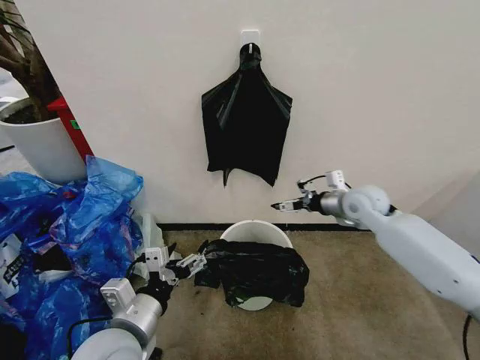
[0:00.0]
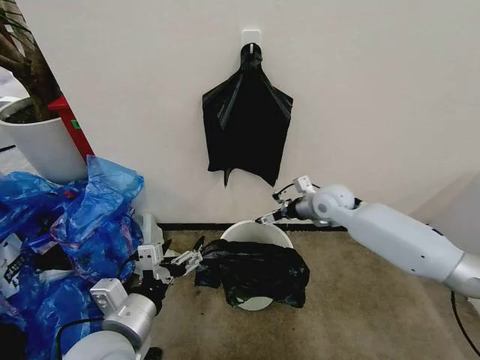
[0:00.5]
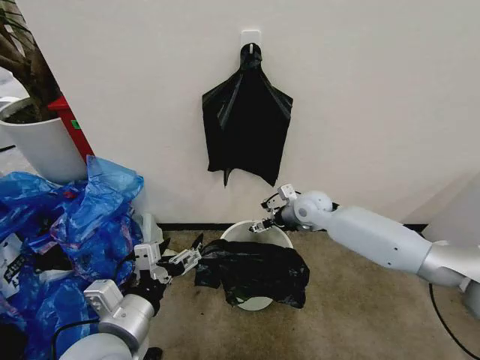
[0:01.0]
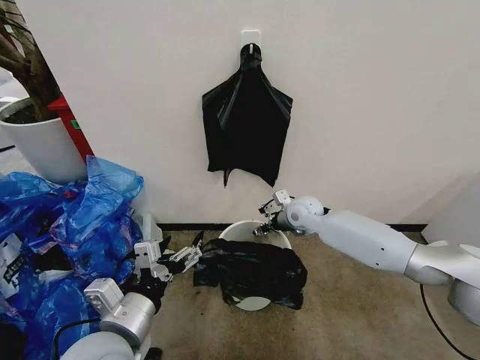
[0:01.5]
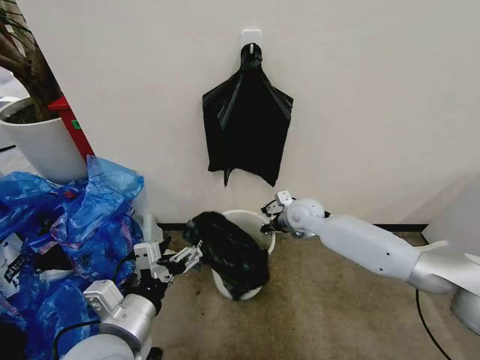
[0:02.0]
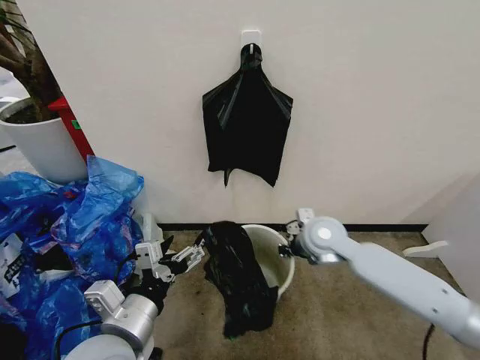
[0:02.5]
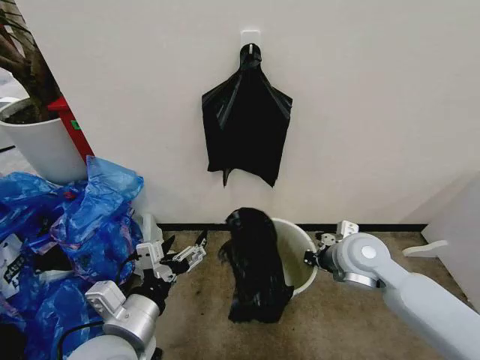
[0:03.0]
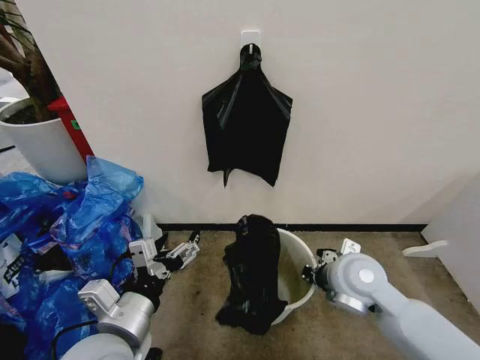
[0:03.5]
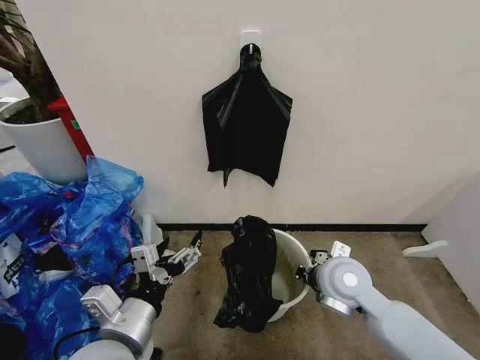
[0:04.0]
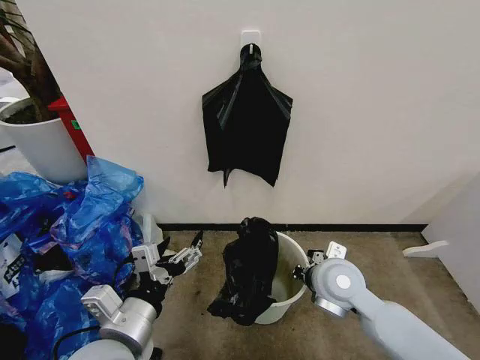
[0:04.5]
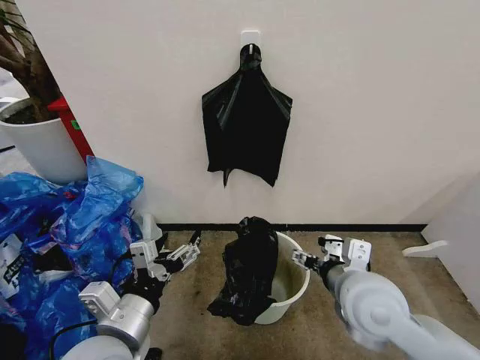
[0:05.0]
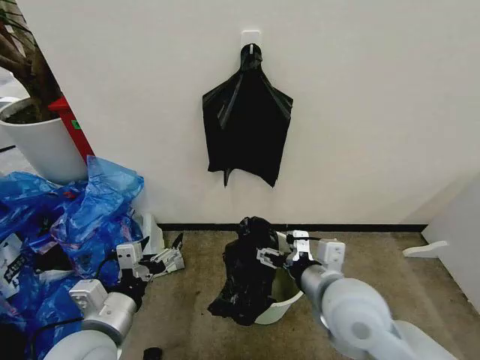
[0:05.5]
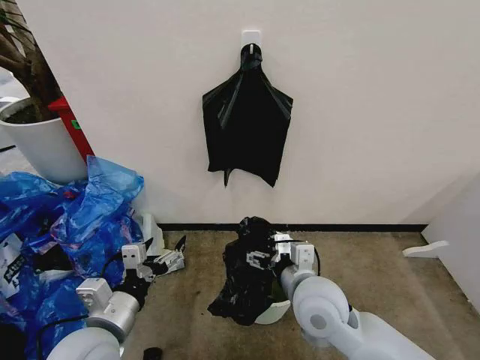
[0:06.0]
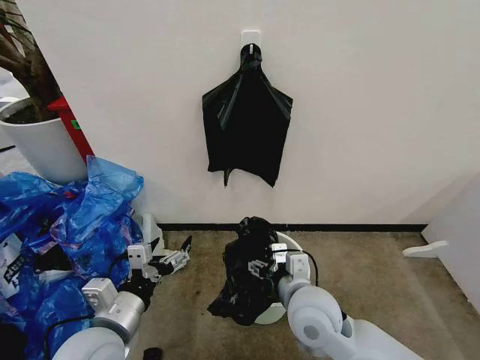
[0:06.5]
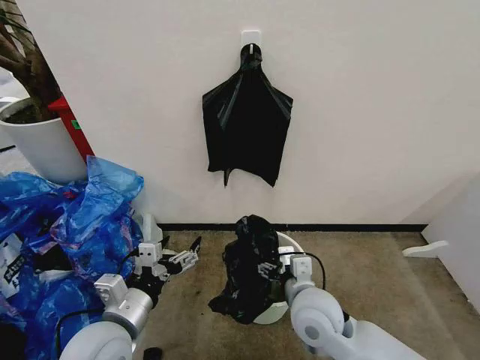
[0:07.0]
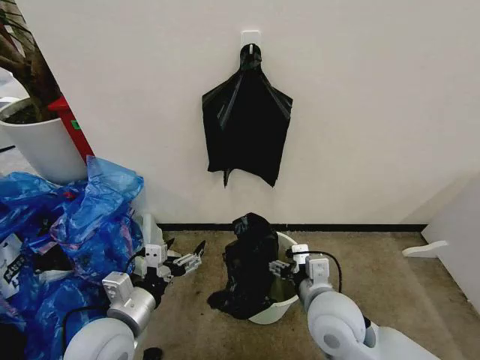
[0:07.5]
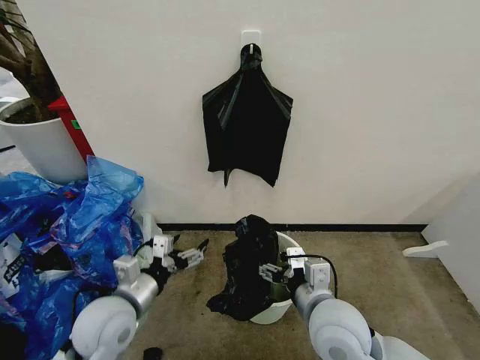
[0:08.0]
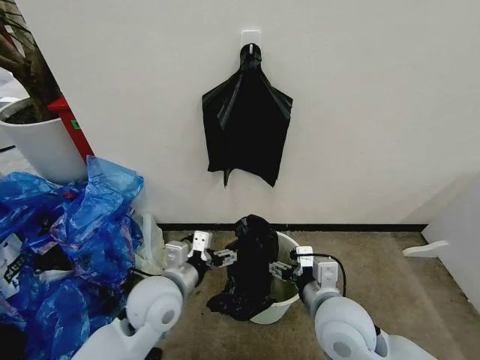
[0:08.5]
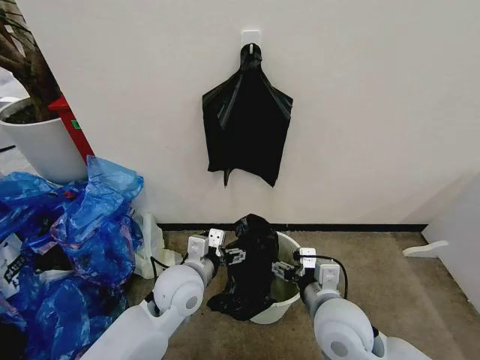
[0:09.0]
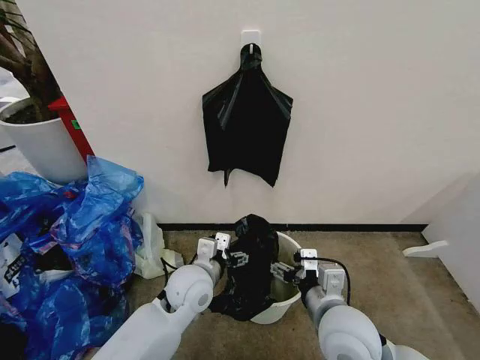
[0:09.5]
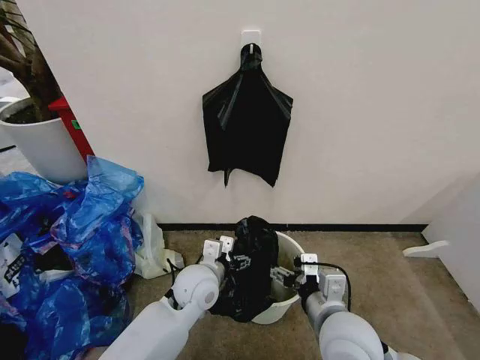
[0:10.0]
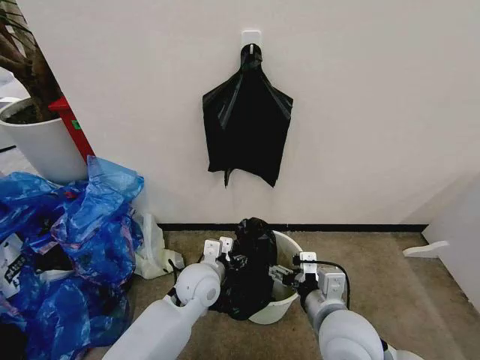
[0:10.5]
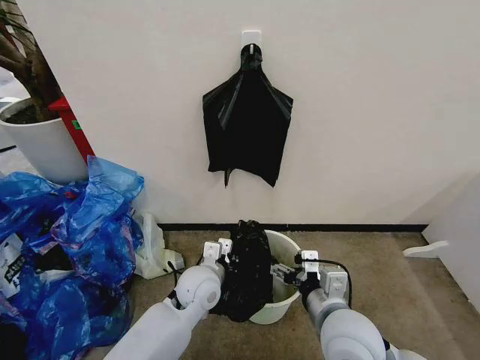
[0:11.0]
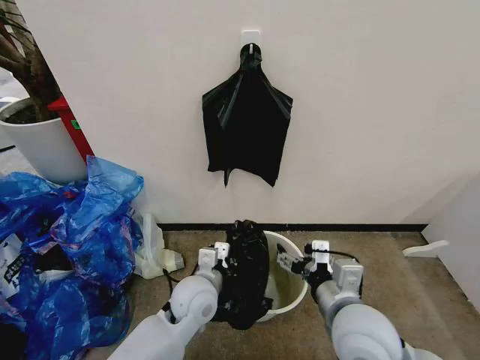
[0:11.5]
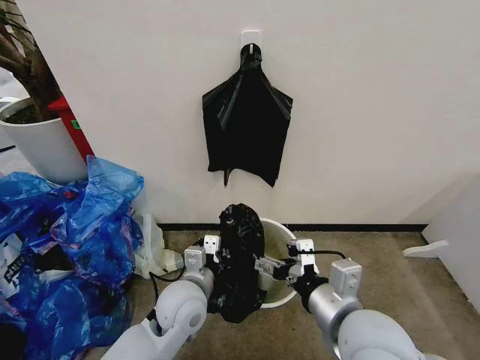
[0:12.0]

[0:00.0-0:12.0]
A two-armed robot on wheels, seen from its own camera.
Task of the whole recording: Place the garbage bag over the trash bin.
0:00.0 to 0:02.0: The right gripper shifts about 15 cm to the left and downward, and closes.
0:02.0 to 0:04.0: The right gripper is displaced backward by approximately 20 cm.
0:04.0 to 0:06.0: The left gripper shifts by some 5 cm; the right gripper shifts about 5 cm to the left, and opens up.
0:06.0 to 0:08.0: The left gripper is displaced forward by some 5 cm.
0:08.0 to 0:10.0: The left gripper is displaced to the right and forward by roughly 15 cm.
0:10.0 to 0:12.0: The right gripper goes about 5 cm upward. Meanwhile the left gripper changes place by approximately 5 cm, and closes up.

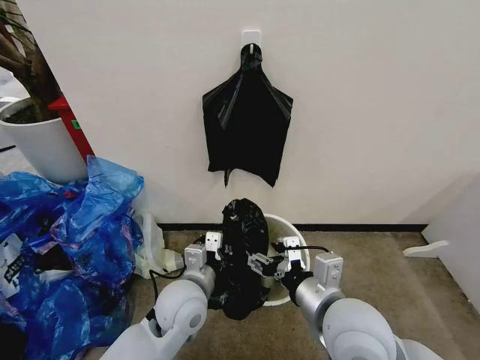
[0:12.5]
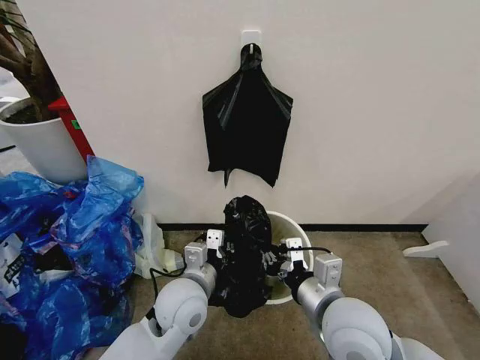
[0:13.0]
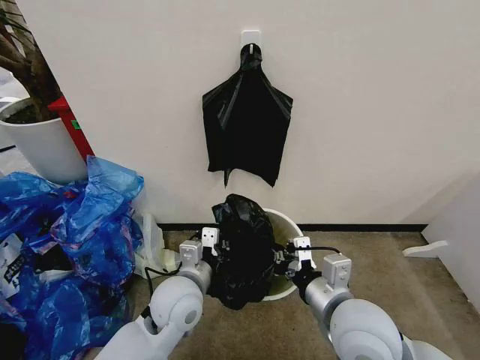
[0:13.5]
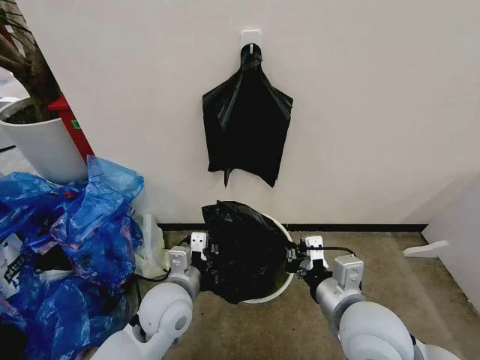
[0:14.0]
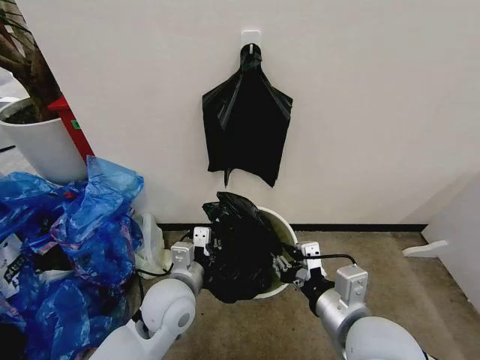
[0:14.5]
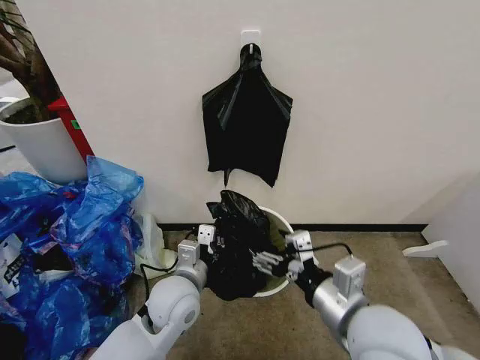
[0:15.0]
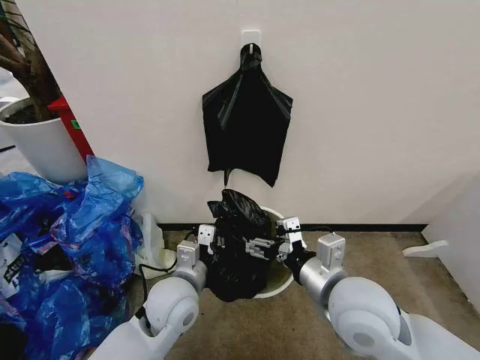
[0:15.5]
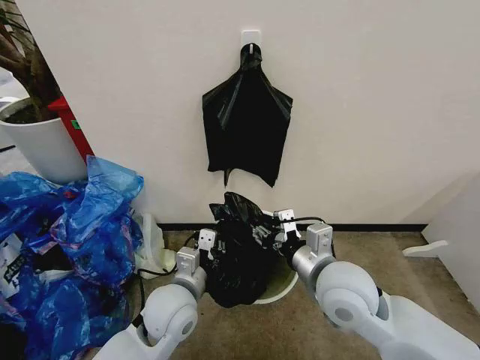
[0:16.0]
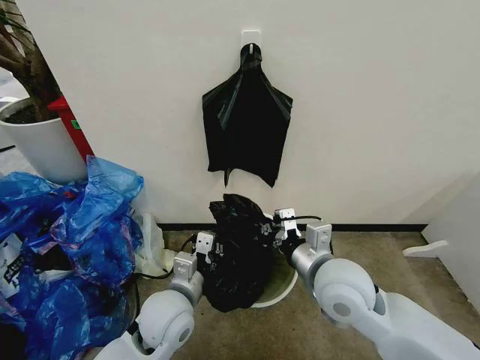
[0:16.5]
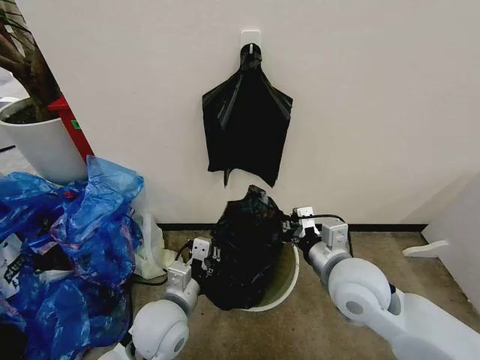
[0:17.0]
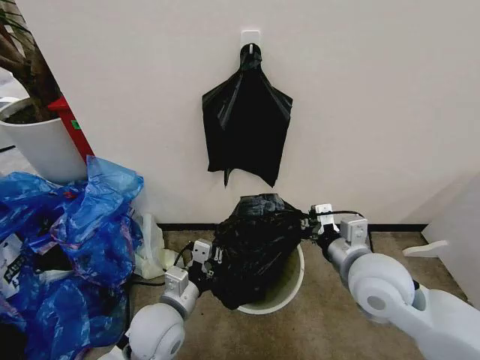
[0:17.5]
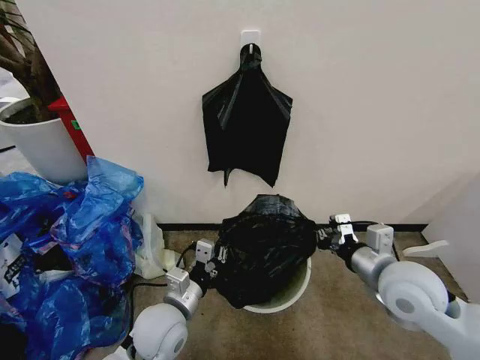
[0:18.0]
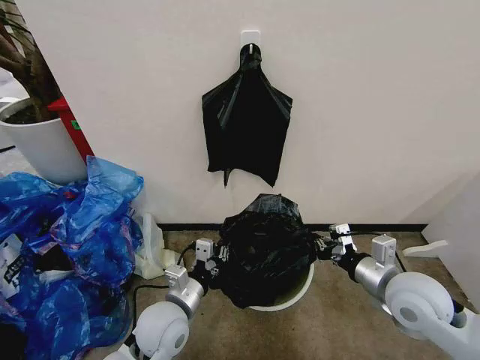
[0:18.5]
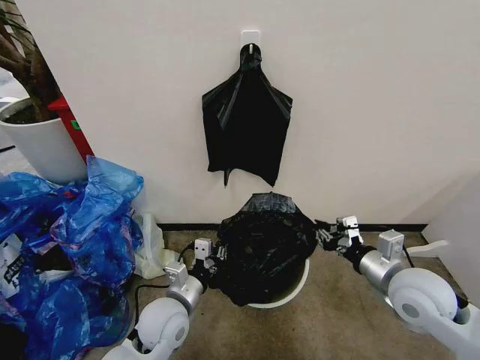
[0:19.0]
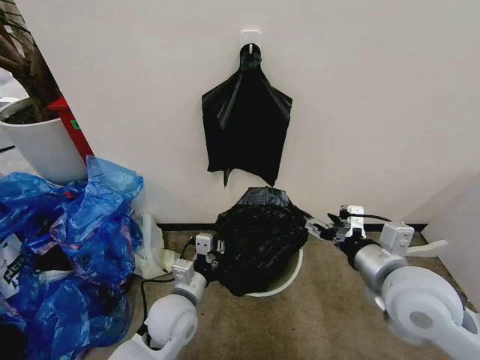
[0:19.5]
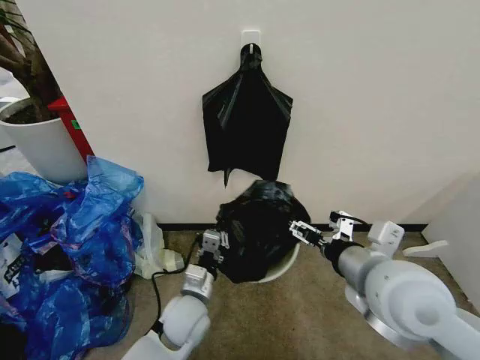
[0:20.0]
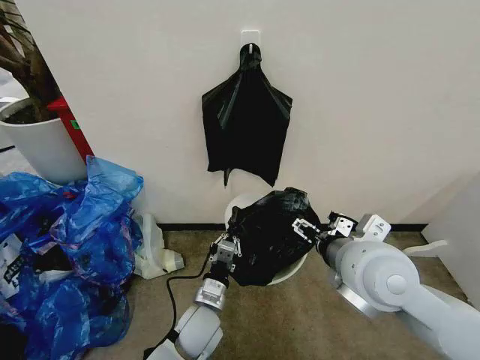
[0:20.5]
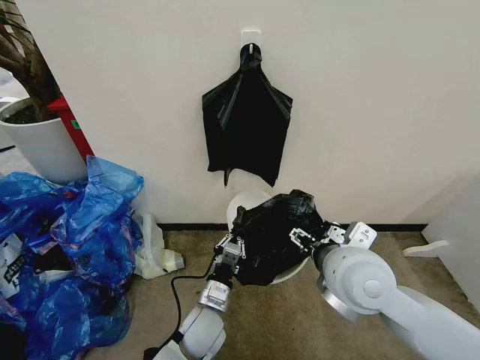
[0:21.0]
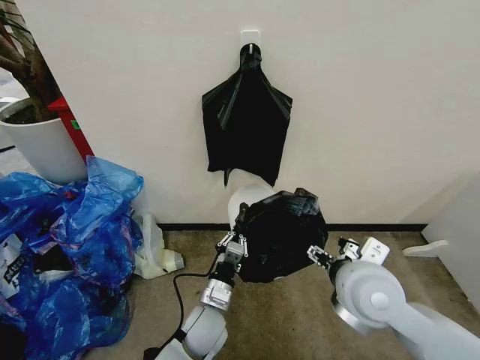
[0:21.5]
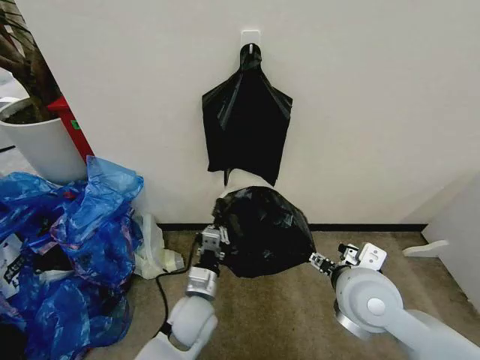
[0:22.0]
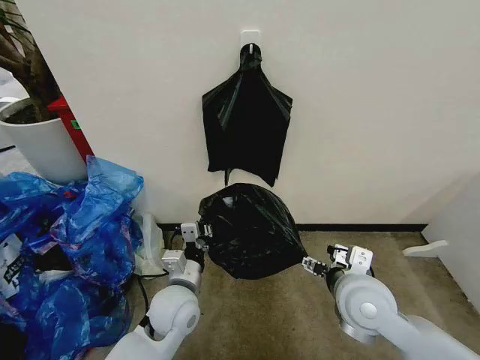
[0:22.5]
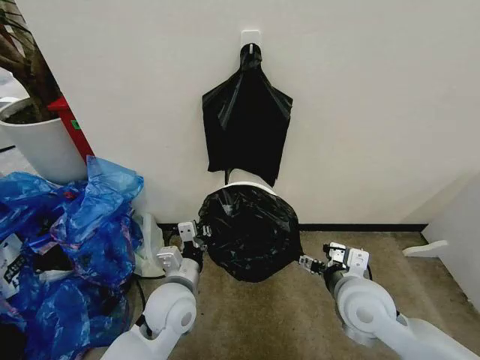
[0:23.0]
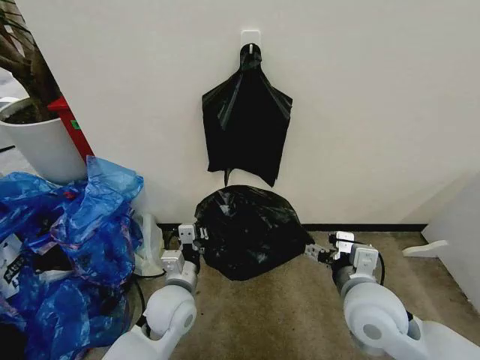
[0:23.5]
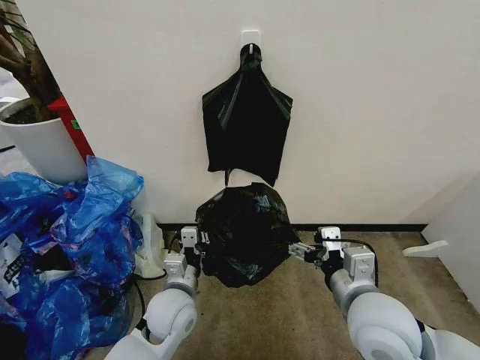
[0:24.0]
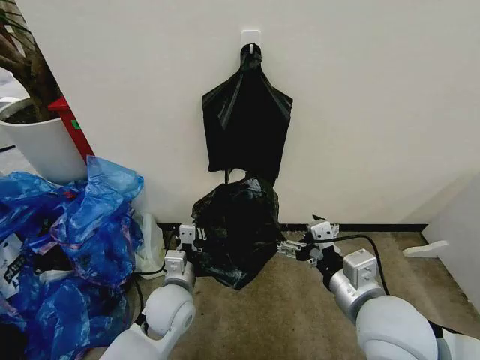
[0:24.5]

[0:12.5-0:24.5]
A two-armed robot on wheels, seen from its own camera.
Task of the whole recording: Place the garbage bag over the trash bin.
0:12.5 to 0:14.5: The right gripper closes.
0:14.5 to 0:16.5: The right gripper shifts about 10 cm forward, and opens and closes again.
0:16.5 to 0:18.5: The right gripper shifts some 15 cm to the right.
0:18.5 to 0:20.5: The left gripper moves downward and to the right, about 10 cm. Meanwhile the right gripper is displaced to the left and upward by approximately 15 cm, and opens up.
0:20.5 to 0:22.5: The left gripper goes approximately 5 cm upward; the right gripper travels downward by roughly 10 cm.
0:22.5 to 0:24.5: The right gripper goes some 5 cm backward.

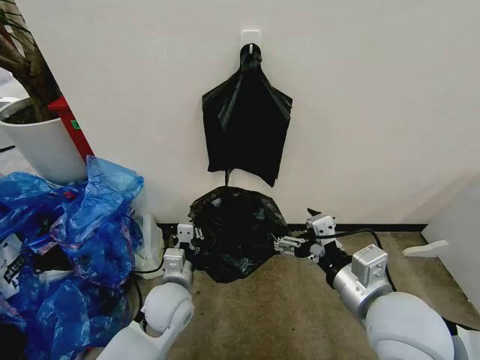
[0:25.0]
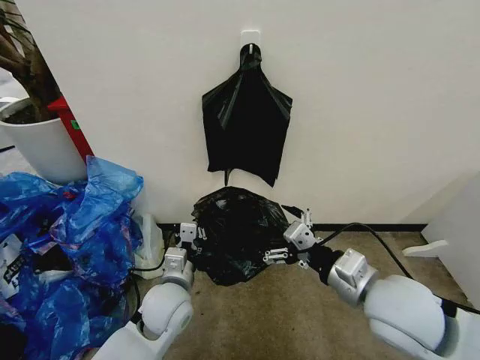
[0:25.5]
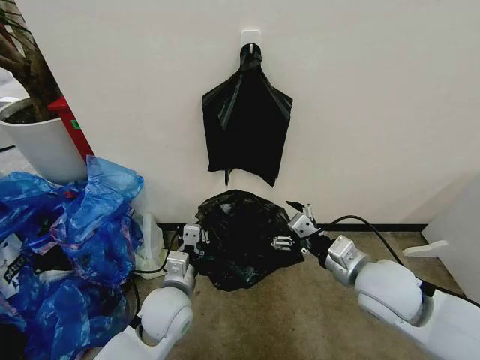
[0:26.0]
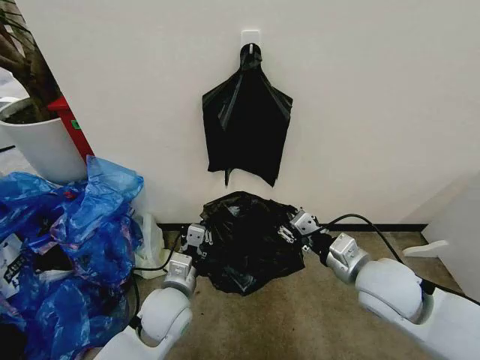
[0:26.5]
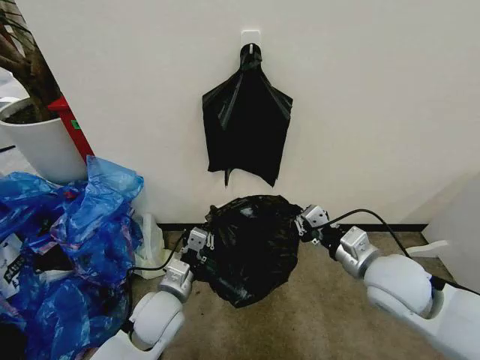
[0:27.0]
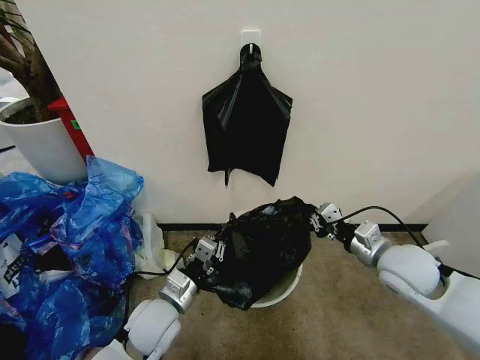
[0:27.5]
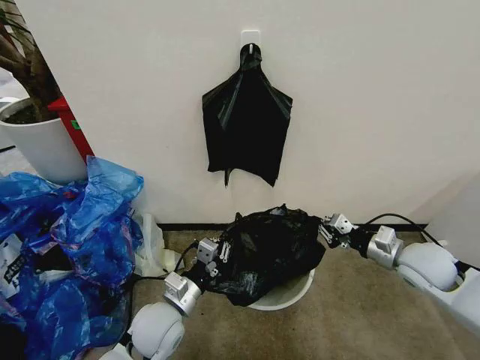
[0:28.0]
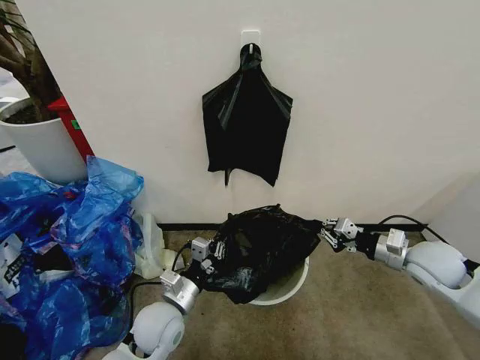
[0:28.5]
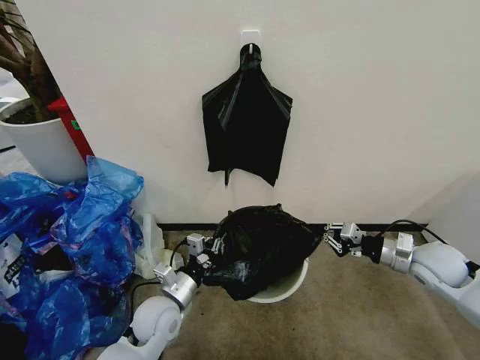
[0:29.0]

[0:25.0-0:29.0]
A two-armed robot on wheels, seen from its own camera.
Task of the whole recording: Place the garbage bag over the trash bin.
0:25.0 to 0:27.0: The right gripper is displaced forward and to the right by some 10 cm, and closes its fingers.
0:27.0 to 0:29.0: The right gripper goes some 20 cm to the right, forward and downward.
